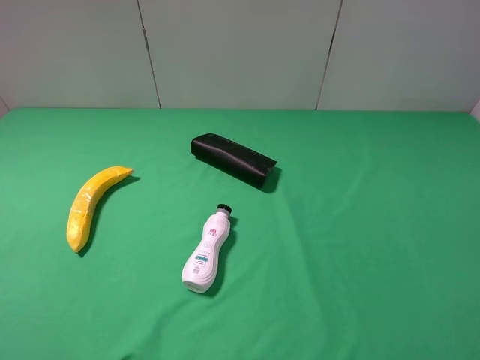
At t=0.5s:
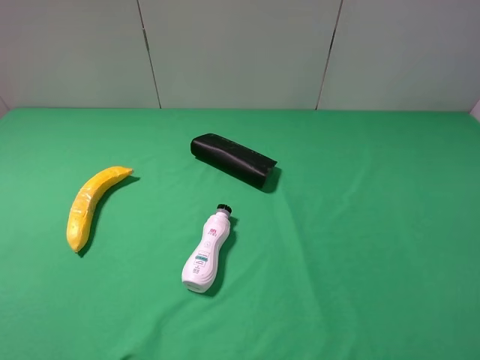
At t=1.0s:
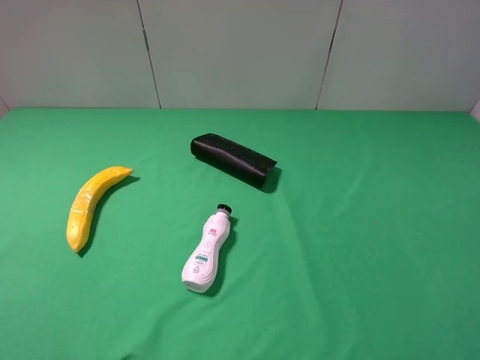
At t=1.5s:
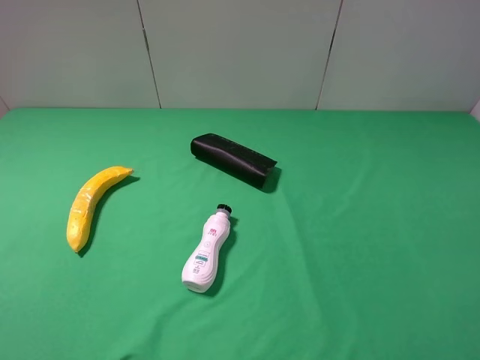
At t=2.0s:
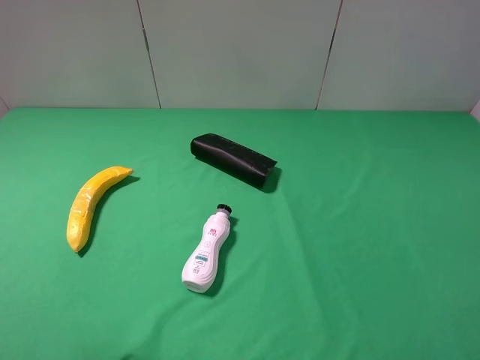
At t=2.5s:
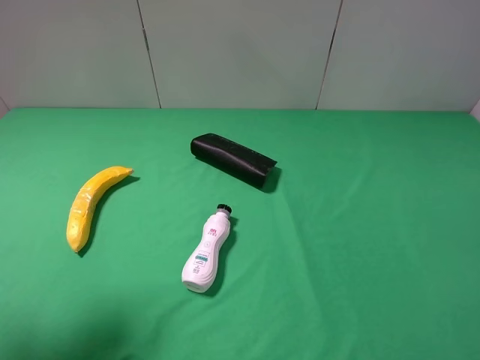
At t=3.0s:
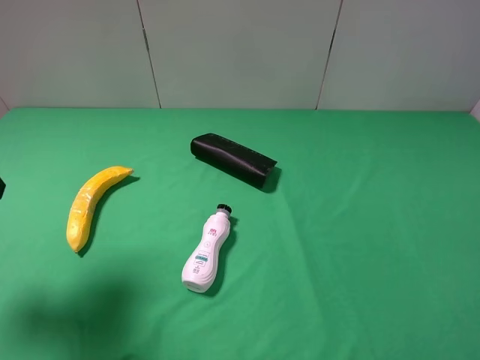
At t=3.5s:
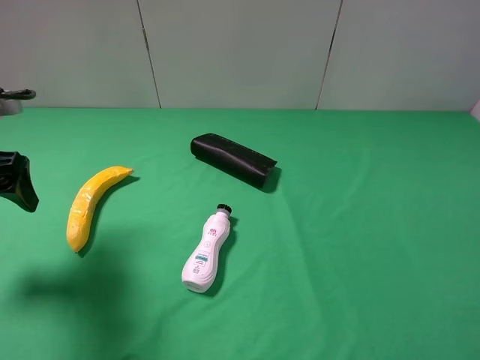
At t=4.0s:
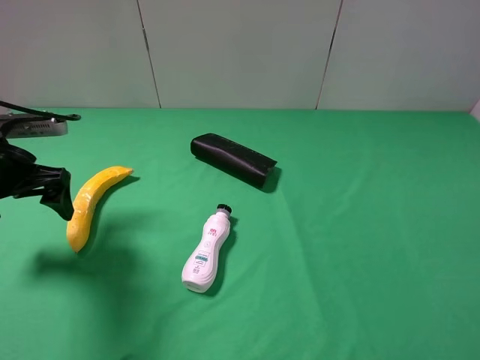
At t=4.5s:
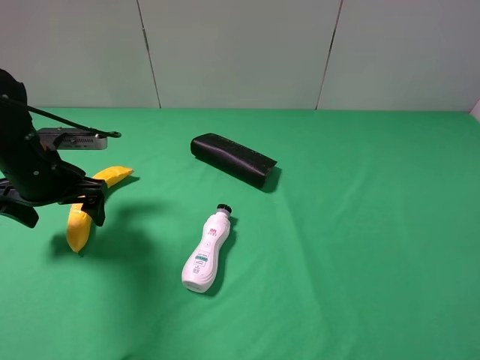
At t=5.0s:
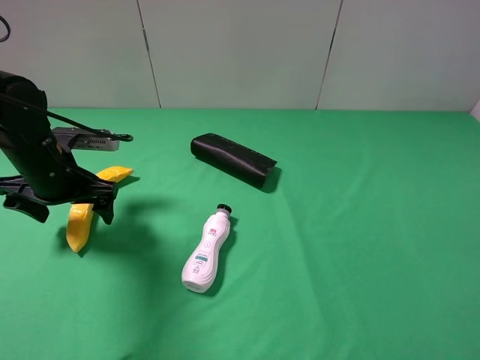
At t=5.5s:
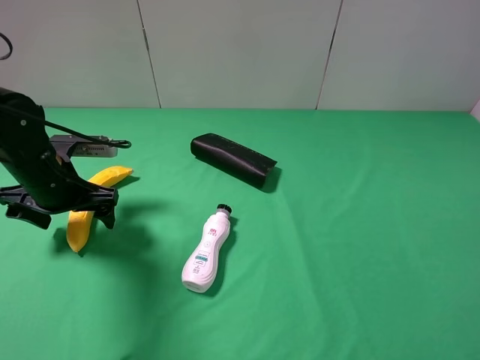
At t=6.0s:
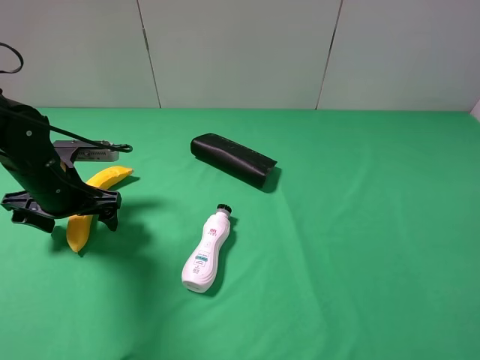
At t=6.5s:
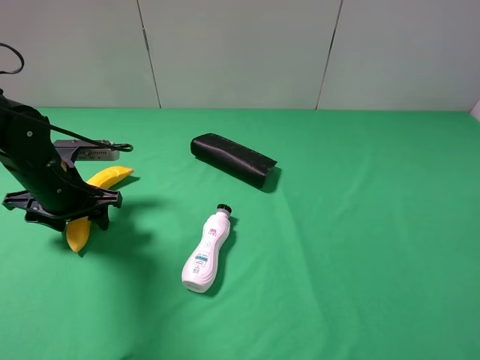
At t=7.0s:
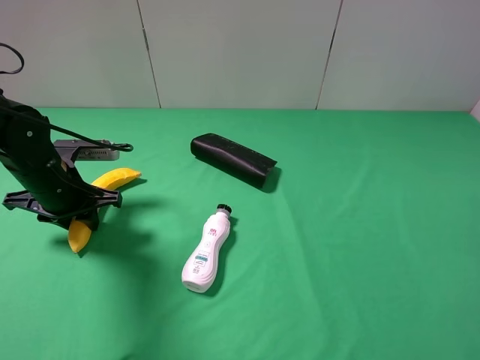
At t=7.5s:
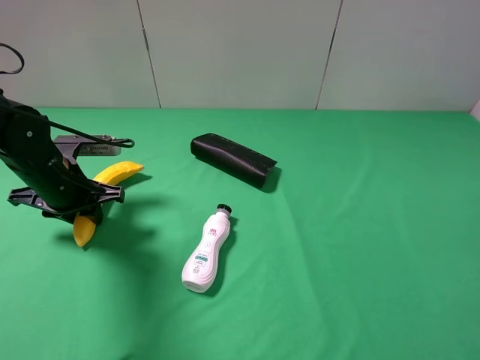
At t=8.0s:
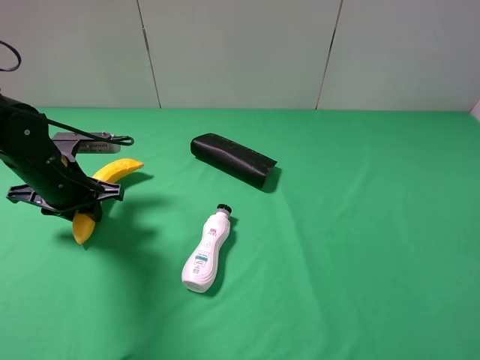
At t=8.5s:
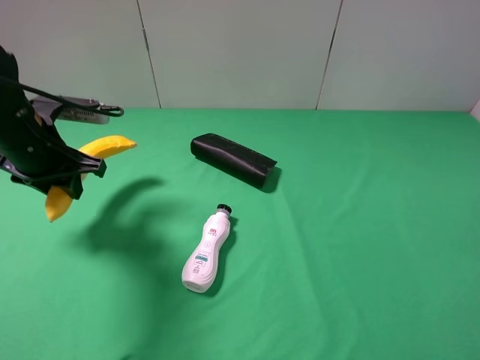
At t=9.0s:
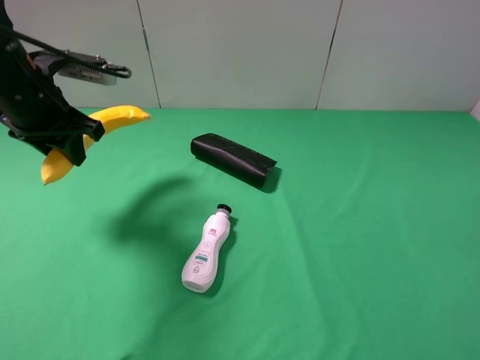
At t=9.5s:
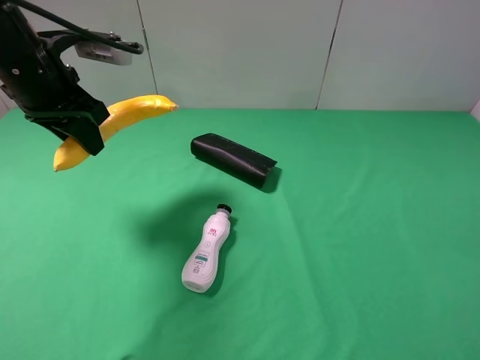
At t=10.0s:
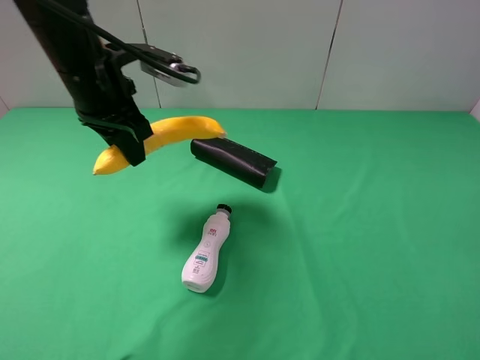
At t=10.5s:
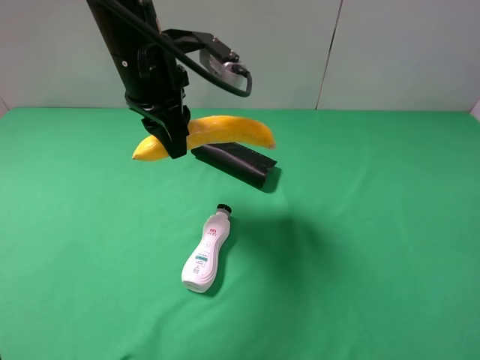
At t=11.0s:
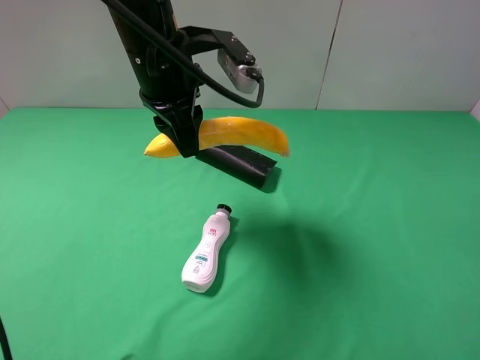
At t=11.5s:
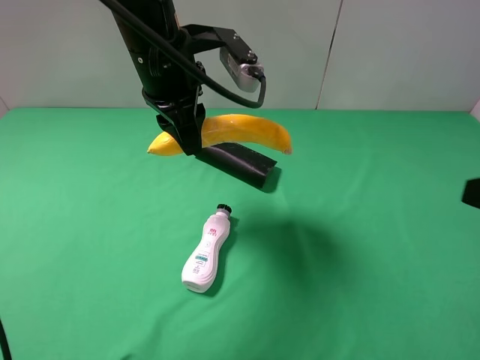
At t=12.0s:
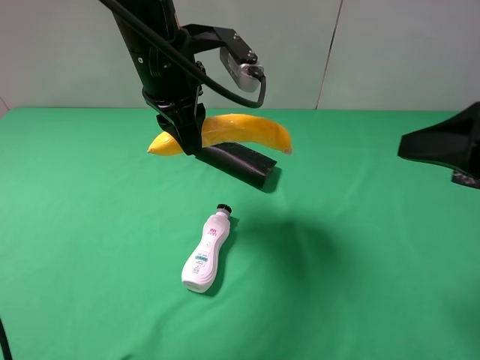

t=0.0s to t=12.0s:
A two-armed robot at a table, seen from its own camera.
Task of the whole recording: use the left gripper to pick up the item and transfer it from the left gripper to the right gripper.
Step, t=0.0s to t=7.0s: Use the left gripper to grab the banana on the left side of the table.
t=2.0s to t=4.0s: The left gripper is displaced forward and downward by some 25 cm.
t=4.0s to t=6.0s: The left gripper shifts about 5 cm downward.
t=6.0s to t=8.0s: The left gripper closes its fingers.
t=8.0s to t=10.0s: The left gripper moves upward and to the right, approximately 15 cm.
t=10.0s to t=12.0s: The right gripper heads forward, covering about 15 cm. The left gripper travels to the right by roughly 10 cm.

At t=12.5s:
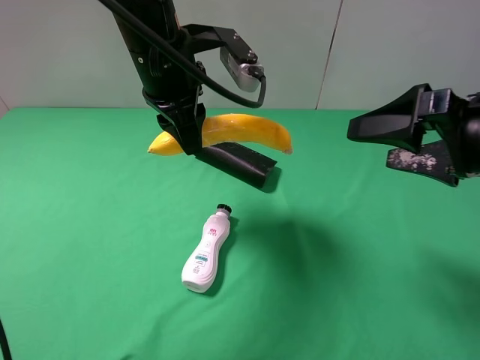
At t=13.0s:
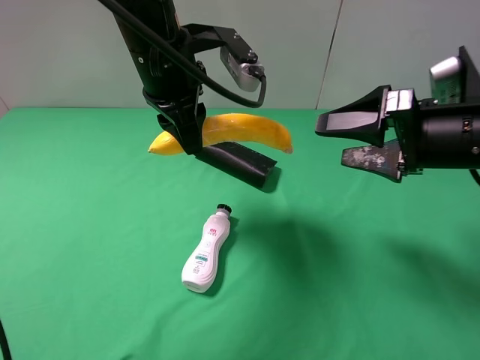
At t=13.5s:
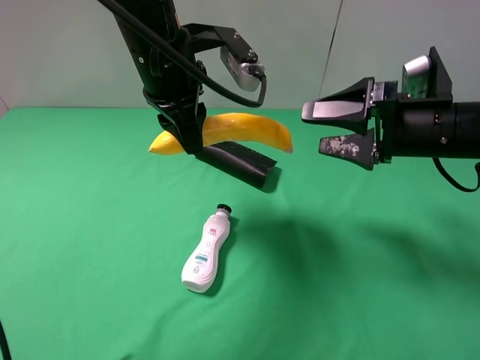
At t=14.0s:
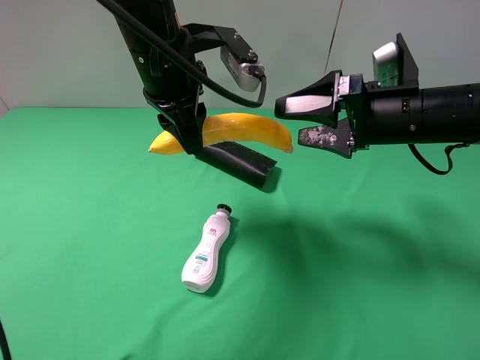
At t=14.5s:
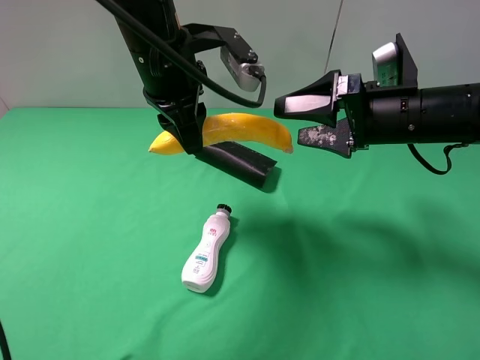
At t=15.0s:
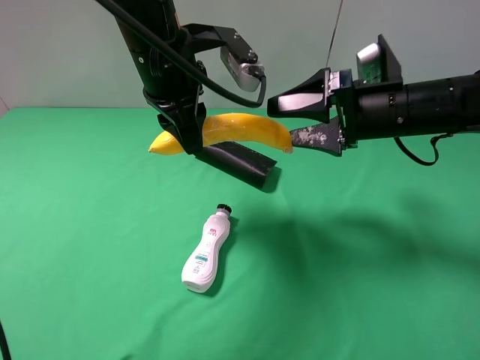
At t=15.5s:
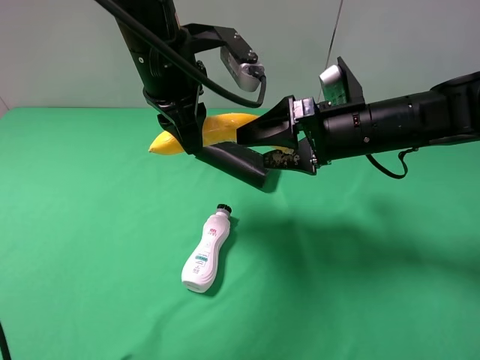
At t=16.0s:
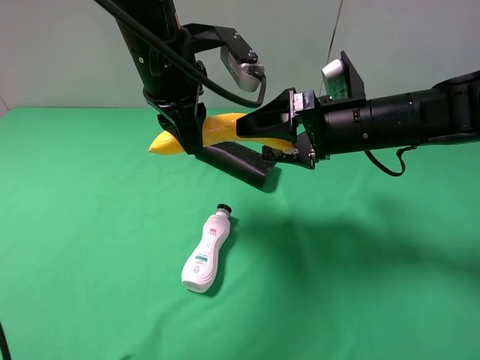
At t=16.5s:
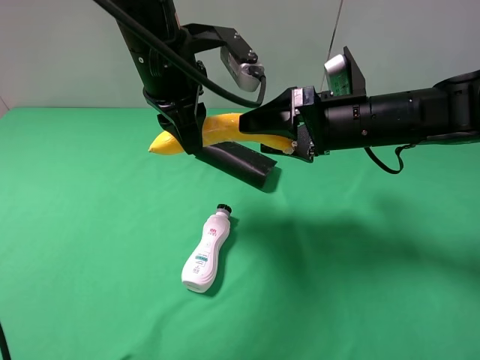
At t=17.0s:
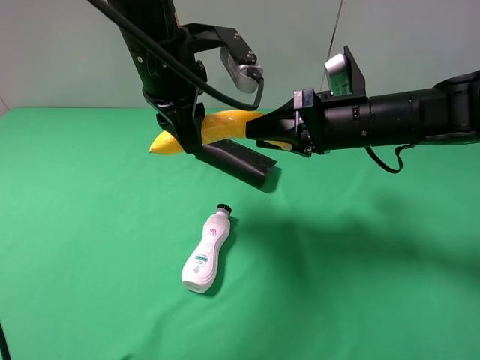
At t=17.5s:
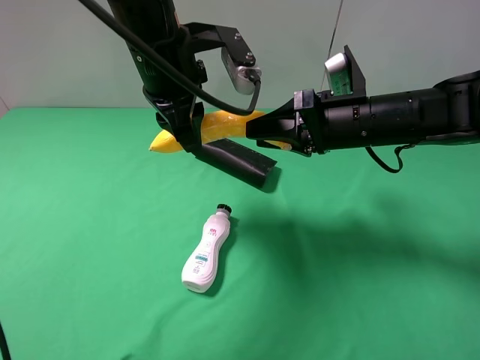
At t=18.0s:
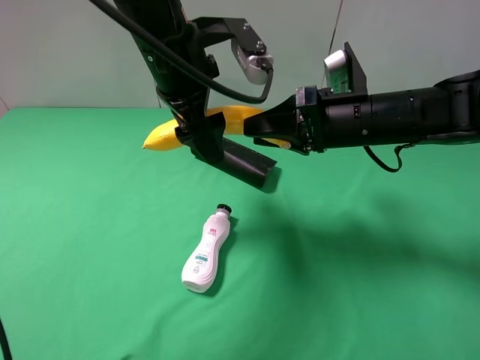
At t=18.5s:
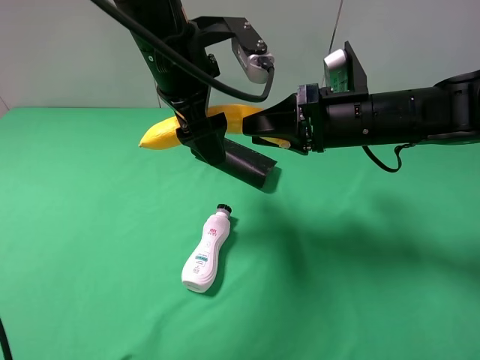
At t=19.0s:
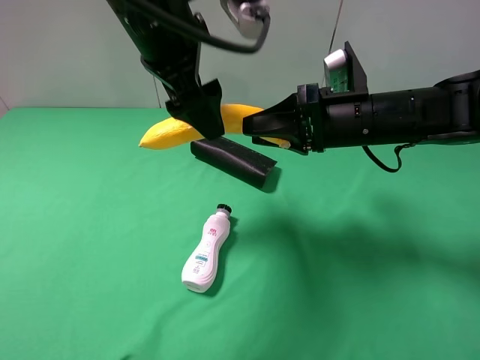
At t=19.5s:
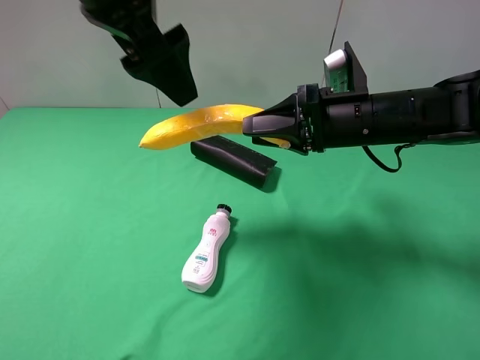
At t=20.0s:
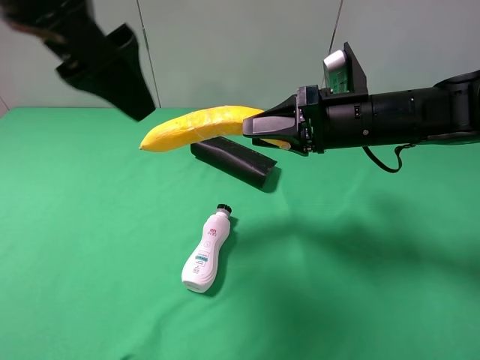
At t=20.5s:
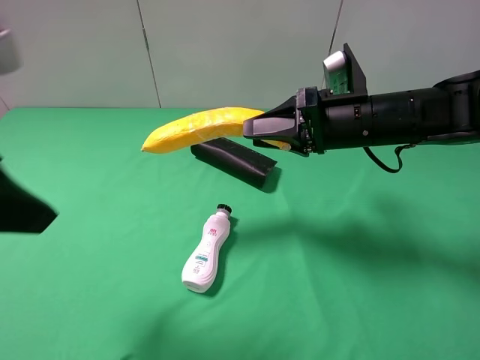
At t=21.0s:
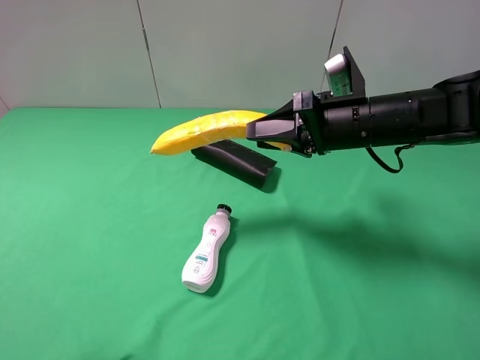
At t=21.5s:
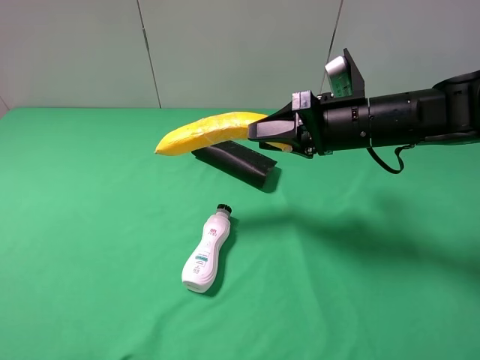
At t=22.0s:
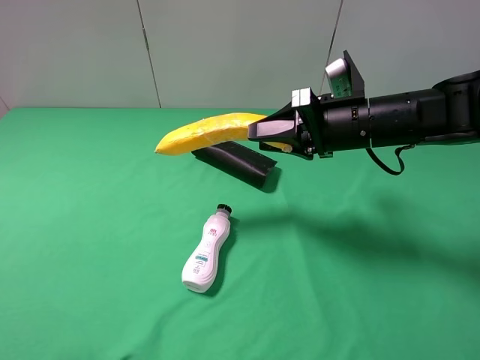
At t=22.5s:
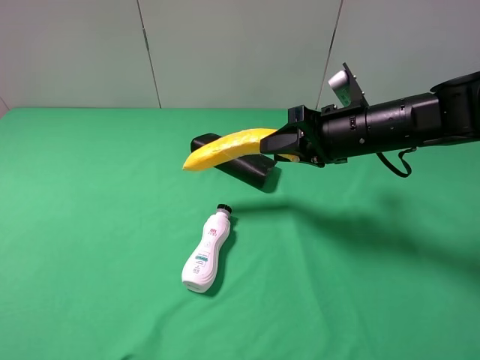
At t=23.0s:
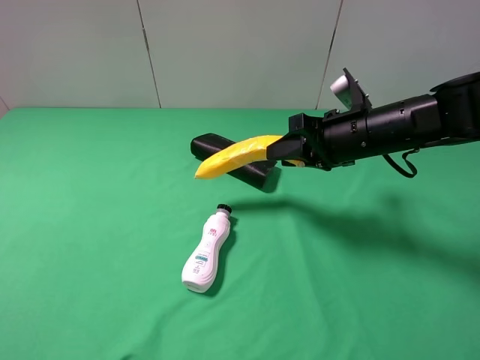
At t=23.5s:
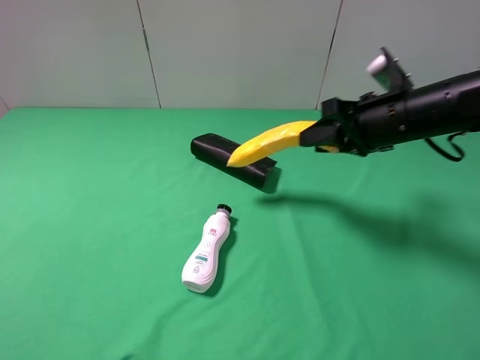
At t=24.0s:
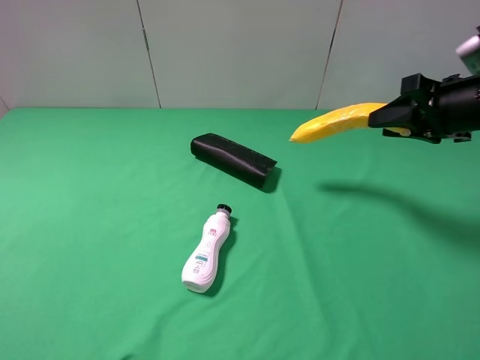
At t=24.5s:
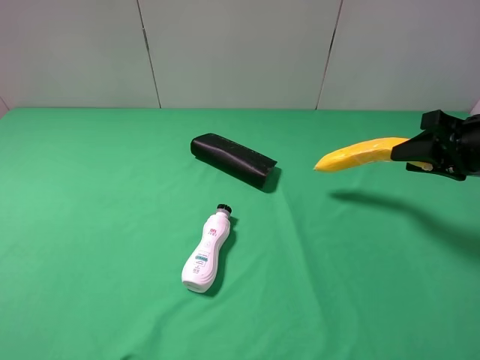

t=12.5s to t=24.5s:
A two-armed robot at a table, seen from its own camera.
Task of the whole recording: use the left gripper to pick up the item and transfer it from the left gripper to the right gripper.
Step, t=12.5s to t=19.0s: Pass the banana to the right gripper.
t=12.5s to t=14.5s: The right gripper shifts about 10 cm forward and to the left.
t=14.5s to t=16.5s: The right gripper closes up.
t=16.5s to t=18.5s: The right gripper closes its fingers; the left gripper opens up.
t=18.5s to t=20.5s: The left gripper travels backward and to the left by some 25 cm.
t=20.5s to t=22.5s: The left gripper moves backward, to the left and downward, about 15 cm.
t=22.5s to t=24.5s: The right gripper travels to the right by about 15 cm.

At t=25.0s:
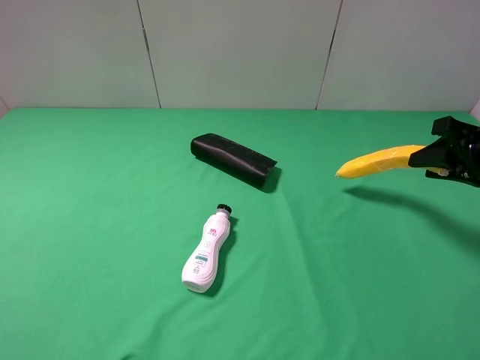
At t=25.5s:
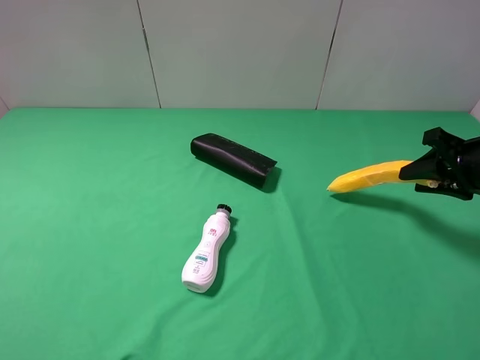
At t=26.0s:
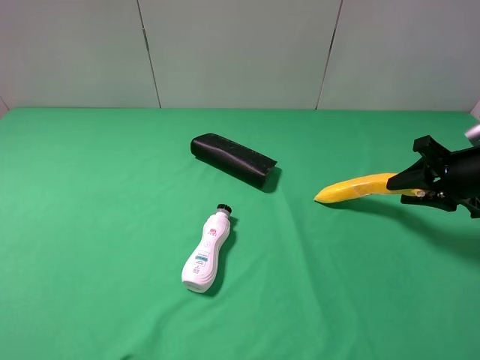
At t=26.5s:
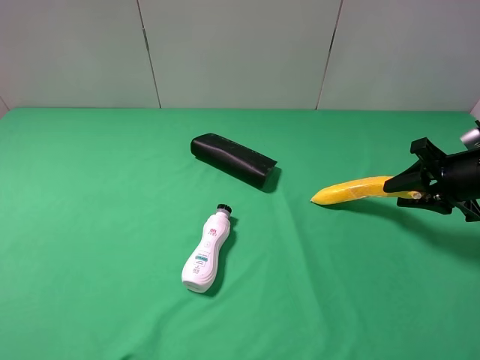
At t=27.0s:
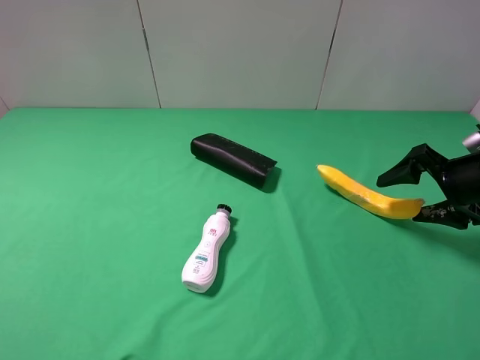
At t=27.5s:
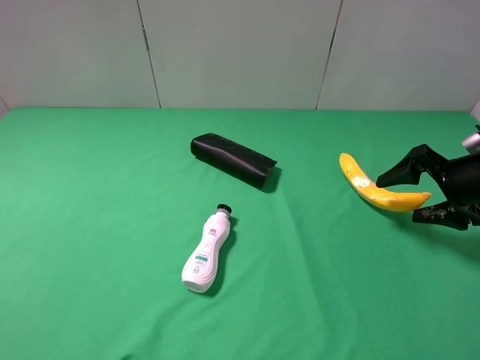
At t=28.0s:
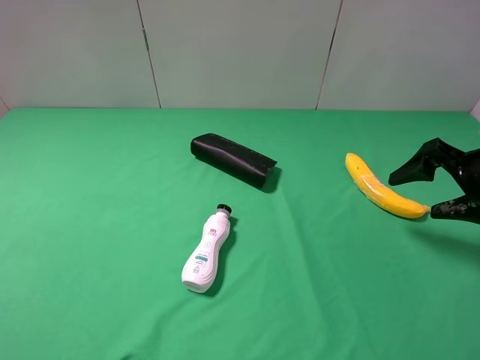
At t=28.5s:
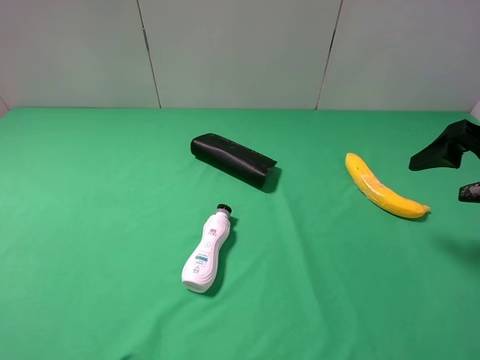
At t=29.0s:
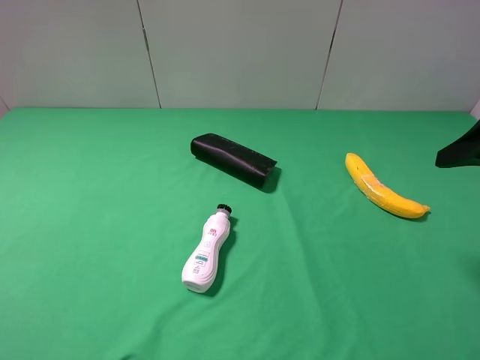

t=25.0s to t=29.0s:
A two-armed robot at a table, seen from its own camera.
Task of the whole recording: use the left gripper to pick up the item and transfer it from the left gripper to the right gripper.
Step, t=25.0s to t=28.0s: The right gripper places banana on the right side of the table.
t=25.0s to t=27.0s: The right gripper shifts approximately 5 cm downward, and opens up.
t=27.0s to t=29.0s: The right gripper moves upward and backward, approximately 15 cm.
